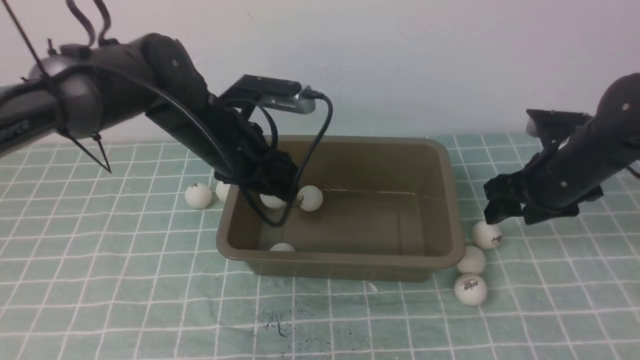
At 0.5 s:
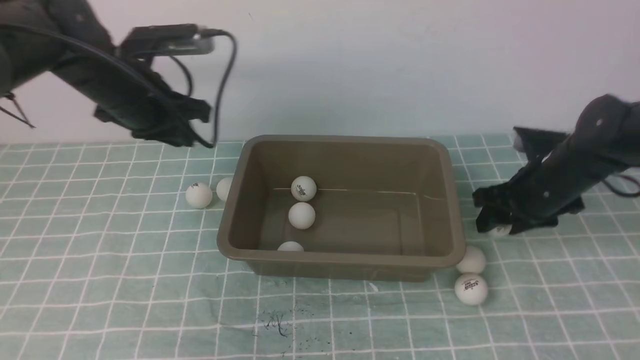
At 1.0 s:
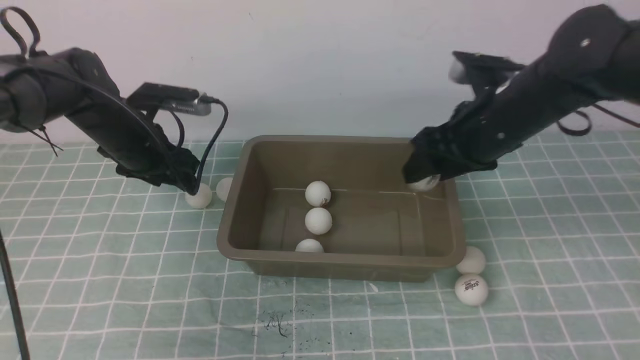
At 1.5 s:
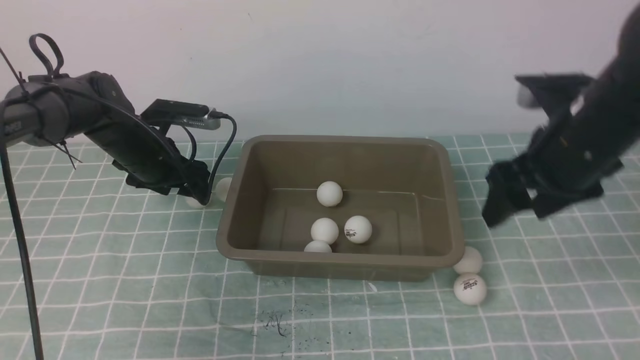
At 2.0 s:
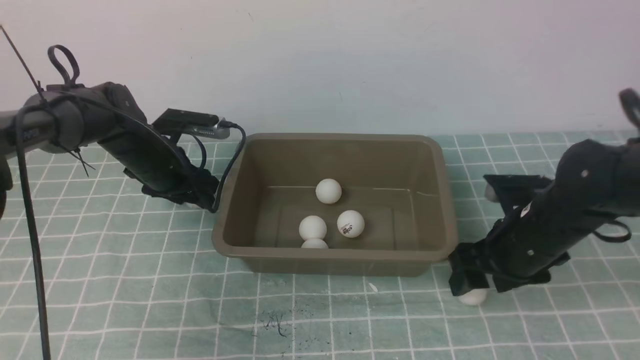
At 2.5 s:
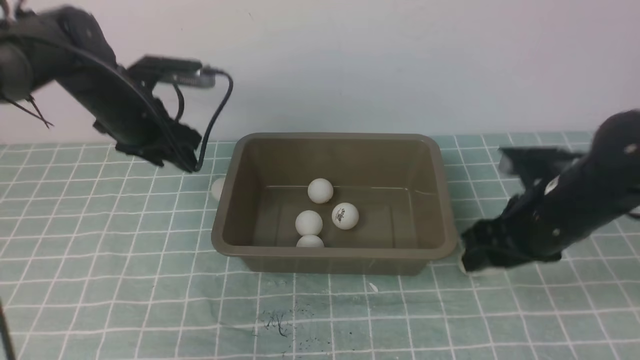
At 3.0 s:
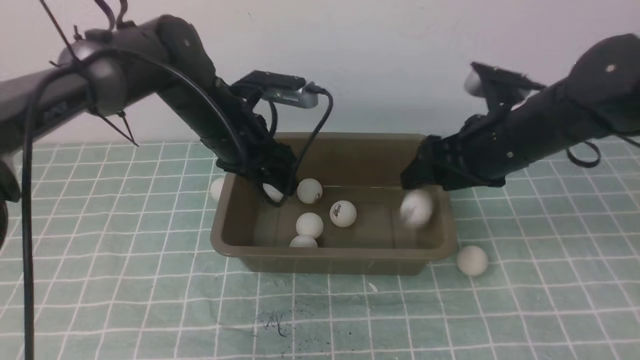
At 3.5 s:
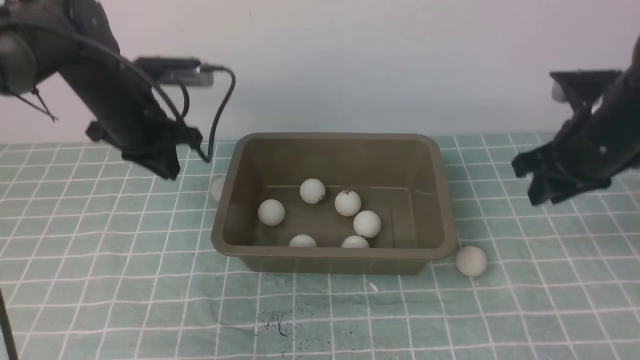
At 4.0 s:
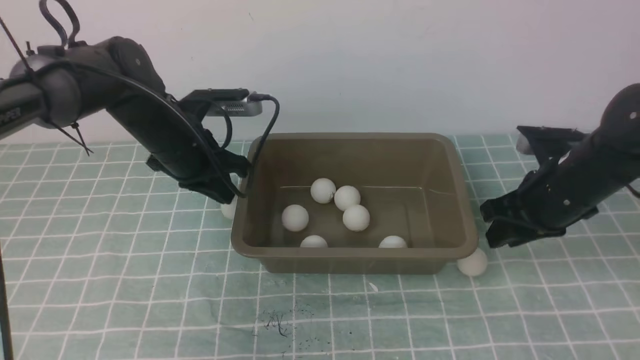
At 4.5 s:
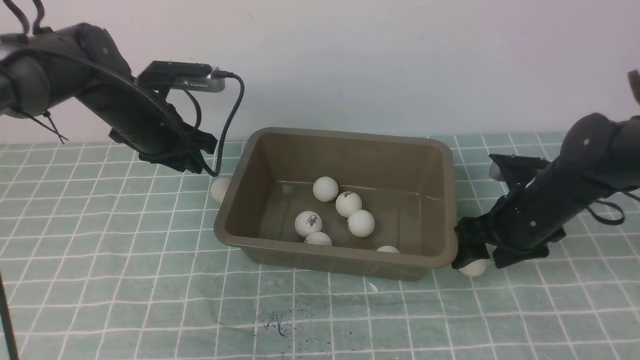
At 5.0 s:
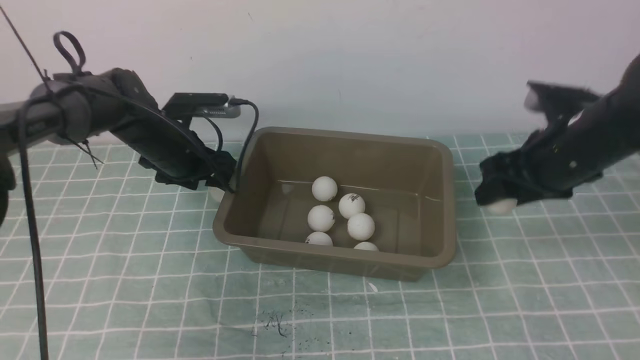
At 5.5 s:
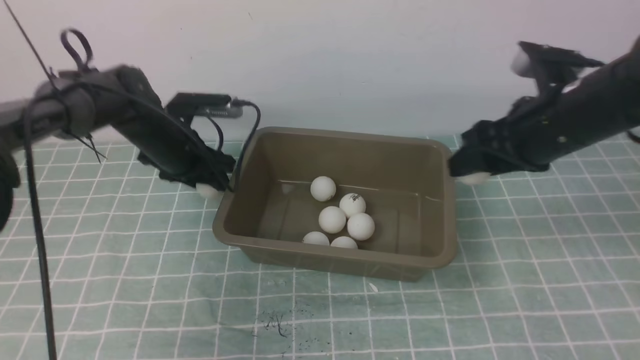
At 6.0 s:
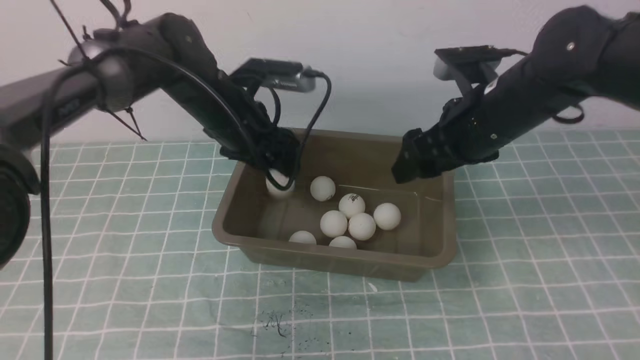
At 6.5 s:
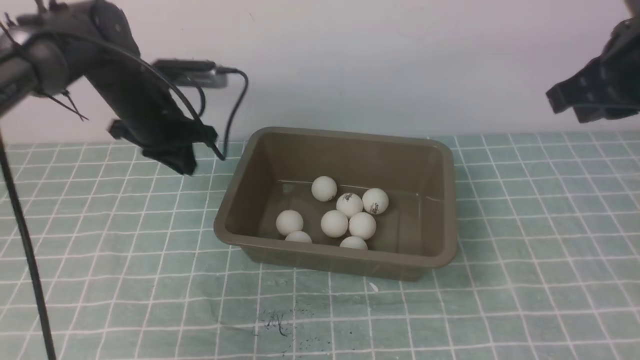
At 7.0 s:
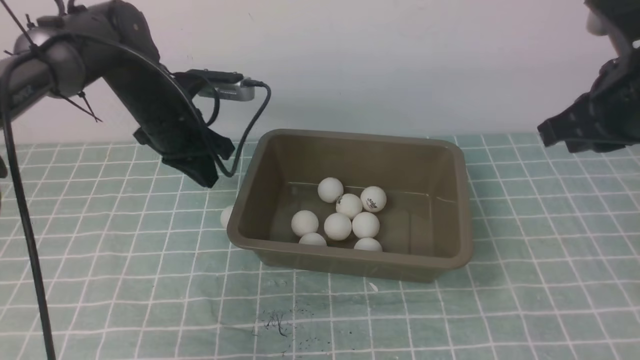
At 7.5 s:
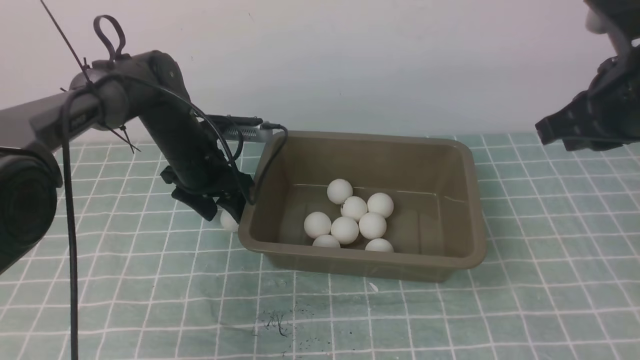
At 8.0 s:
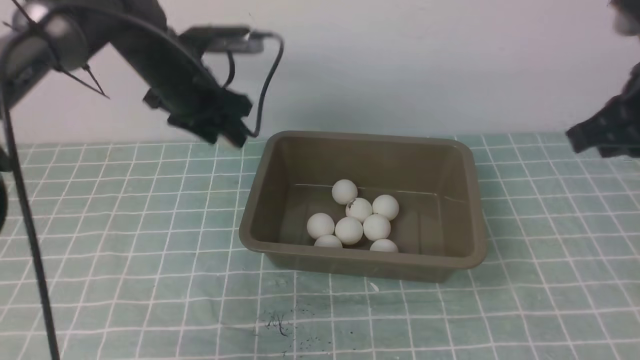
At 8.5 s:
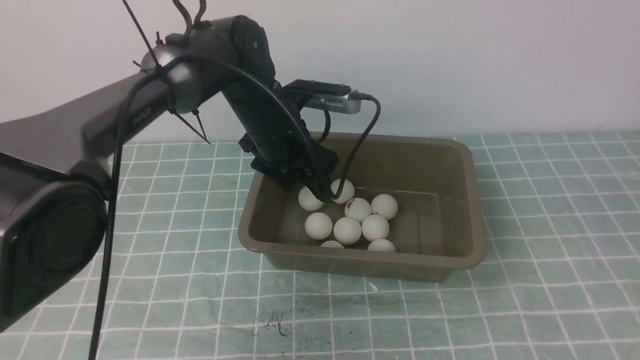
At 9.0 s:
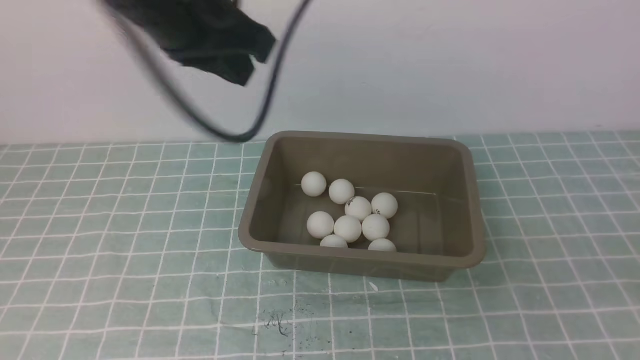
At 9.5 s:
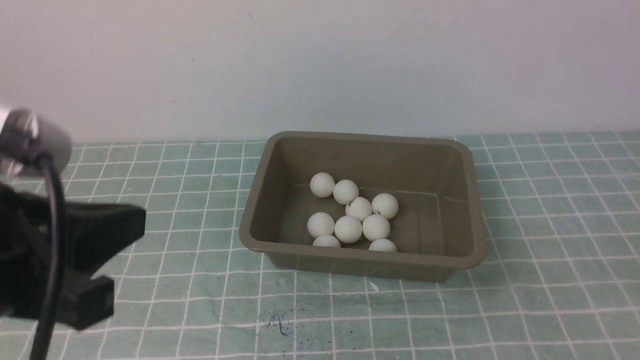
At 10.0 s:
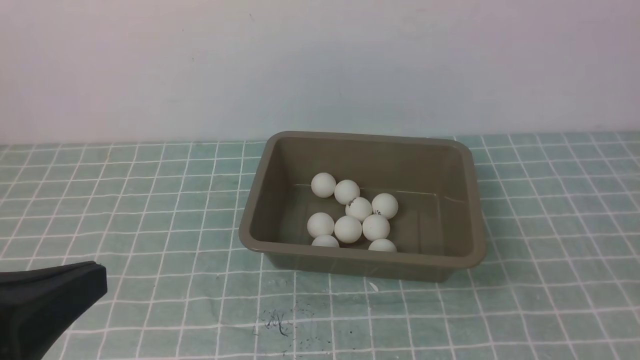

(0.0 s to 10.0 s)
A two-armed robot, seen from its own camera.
Step, 0.5 s - 1.0 s: use the right arm to put the table tennis ball into the box.
Step, 2.5 s - 3.0 s: use the left arm to put the table tennis ball into the box.
Step, 3.5 s - 4.5 s: use the right arm to clamp the table tennis ball closest to it.
Step, 5.0 s - 5.5 s: use the right arm to put the table tennis ball into the box.
Step, 6.0 s - 7.5 s: use the left arm to clamp the table tennis ball closest to it.
Step, 8.0 s - 8.5 s: use the left arm to put the table tennis ball into the box.
0.0 s - 2.0 s: The right gripper moves up and down over roughly 10 cm, changing direction 2 times. The left gripper goes roughly 15 cm downward, to the left and forward.
2.0 s - 4.0 s: The right gripper goes upward and returns, approximately 10 cm each way, and closes its fingers; the left gripper travels upward by some 5 cm, and closes.
4.0 s - 6.0 s: The left gripper shifts by about 5 cm, and opens; the right gripper is displaced to the left and upward by some 10 cm, and opens.
6.0 s - 8.0 s: The right gripper goes about 15 cm to the right, backward and upward, and closes up. The left gripper reaches about 10 cm downward, then returns, and closes, then reopens.
8.0 s - 10.0 s: The right gripper shifts approximately 25 cm backward. Meanwhile the left gripper heads backward, covering some 40 cm, and closes up.

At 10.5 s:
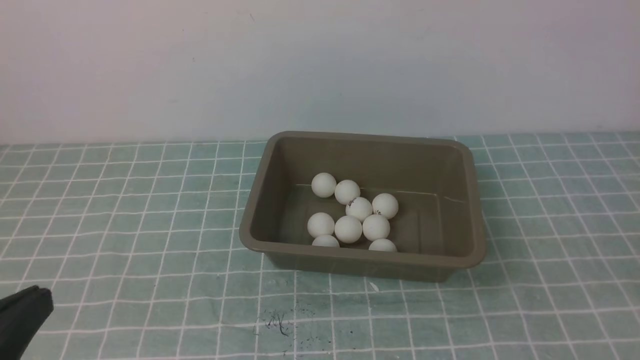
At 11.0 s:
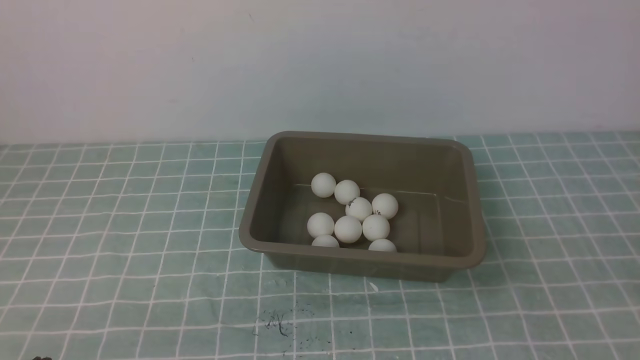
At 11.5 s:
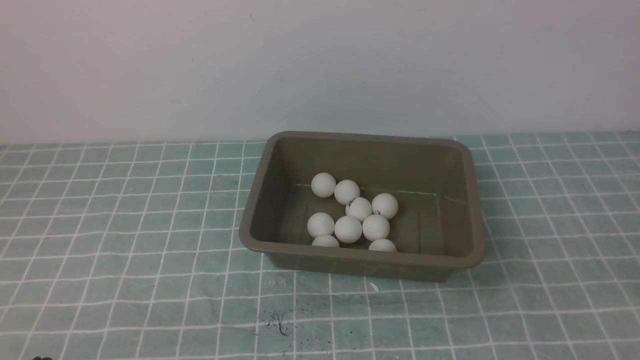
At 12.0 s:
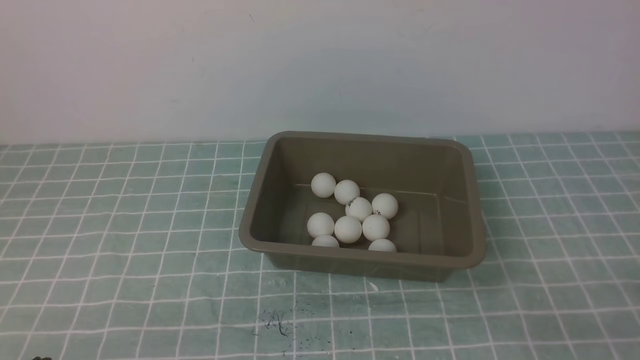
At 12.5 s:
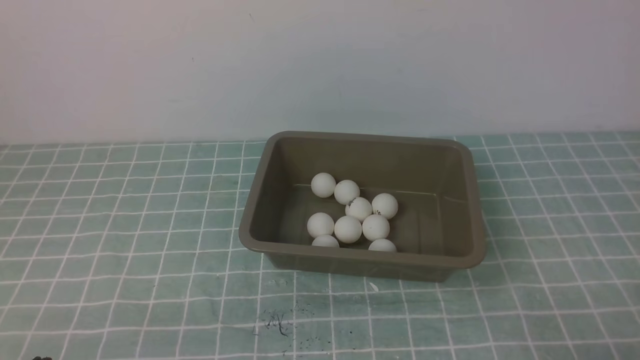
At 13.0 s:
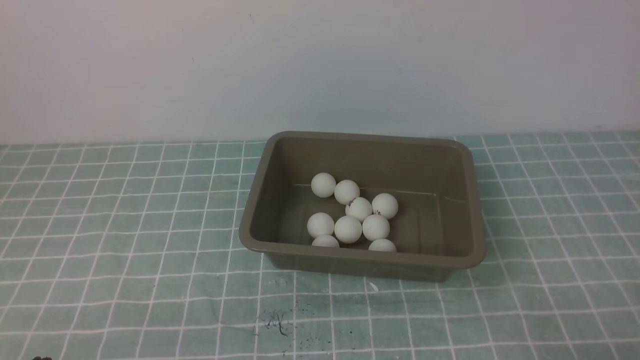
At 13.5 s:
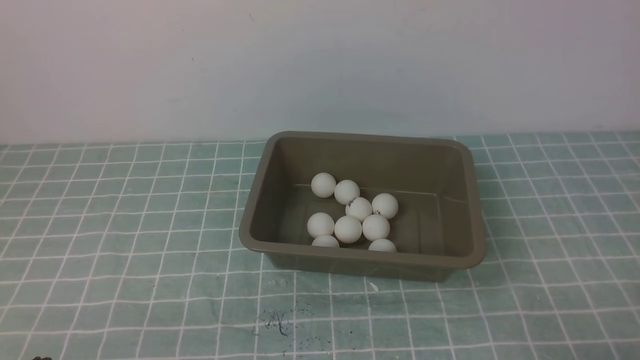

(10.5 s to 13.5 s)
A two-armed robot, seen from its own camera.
10.5 s - 12.0 s: The left gripper moves downward, approximately 10 cm.
